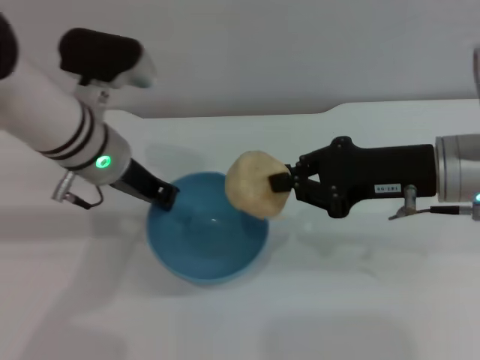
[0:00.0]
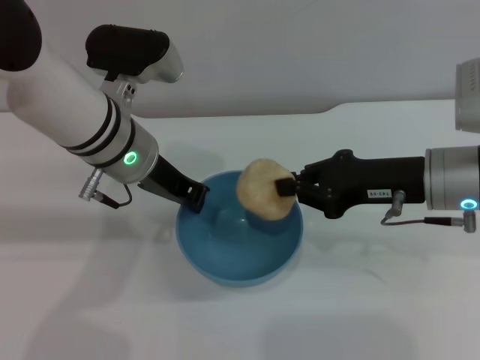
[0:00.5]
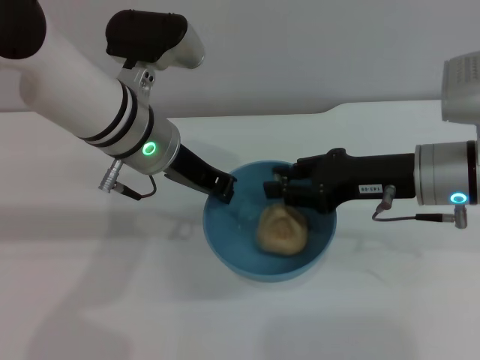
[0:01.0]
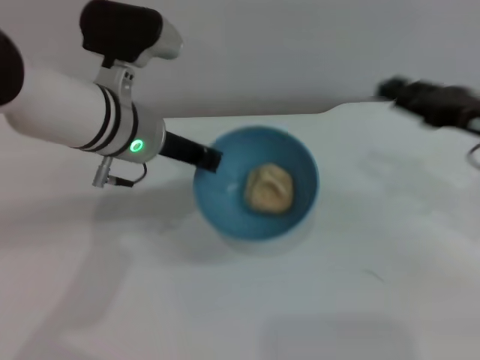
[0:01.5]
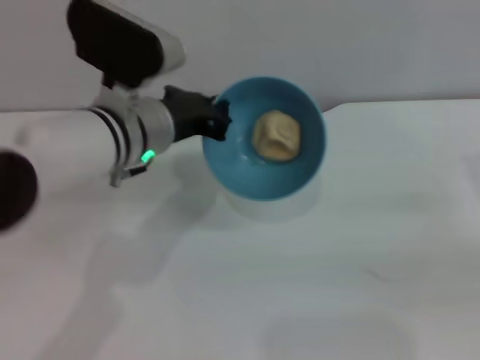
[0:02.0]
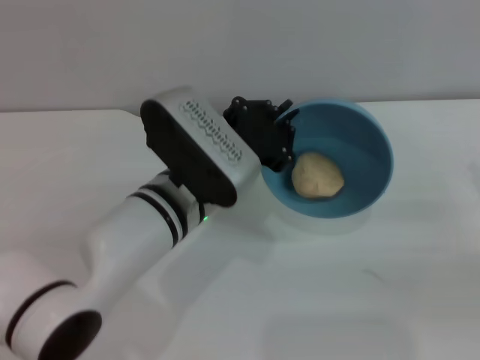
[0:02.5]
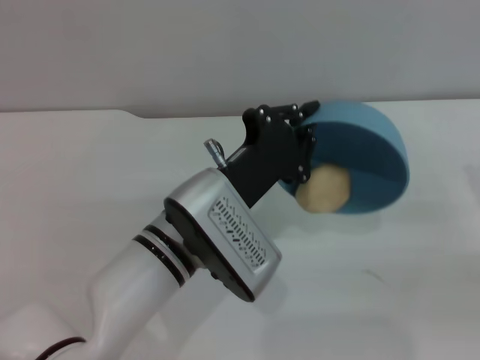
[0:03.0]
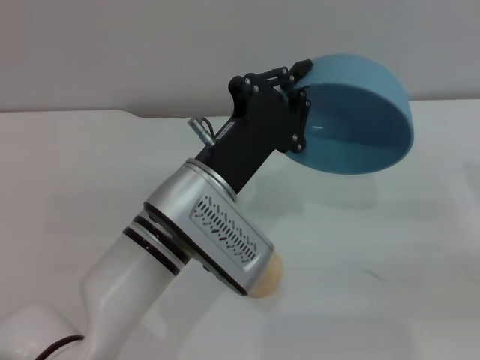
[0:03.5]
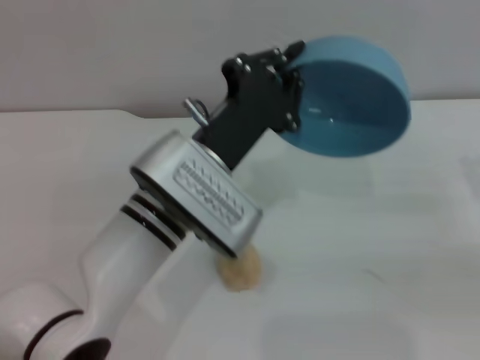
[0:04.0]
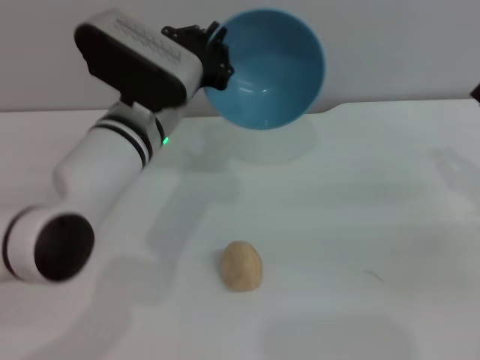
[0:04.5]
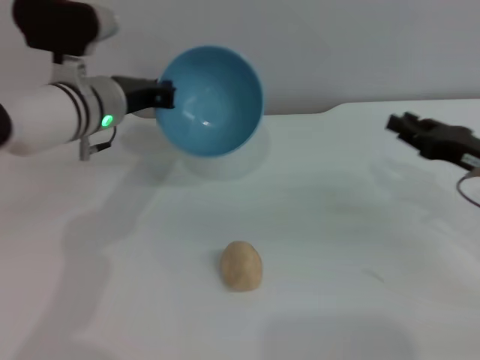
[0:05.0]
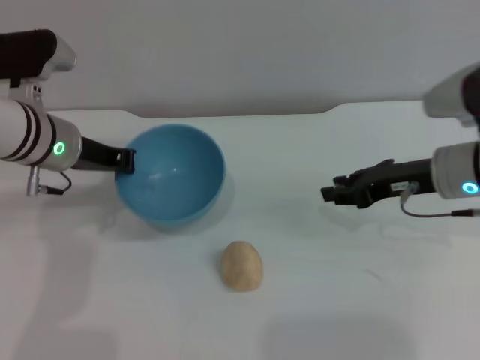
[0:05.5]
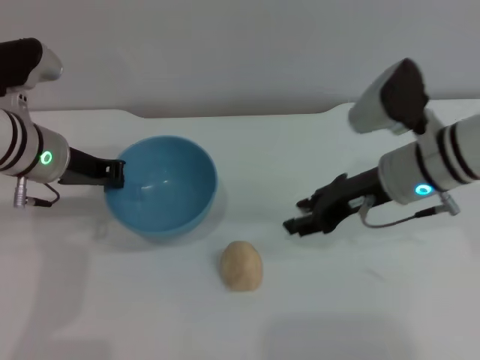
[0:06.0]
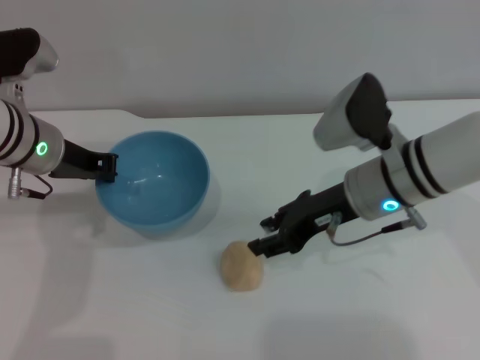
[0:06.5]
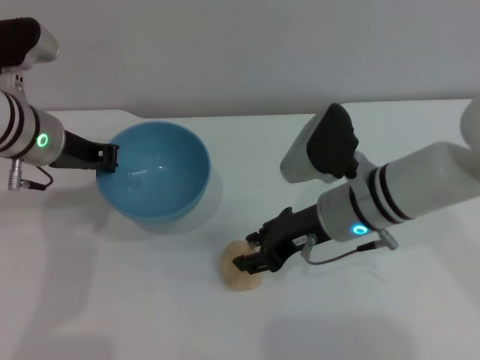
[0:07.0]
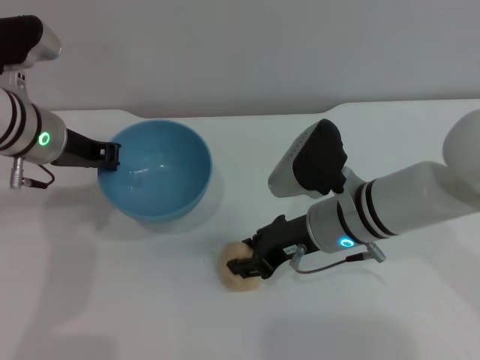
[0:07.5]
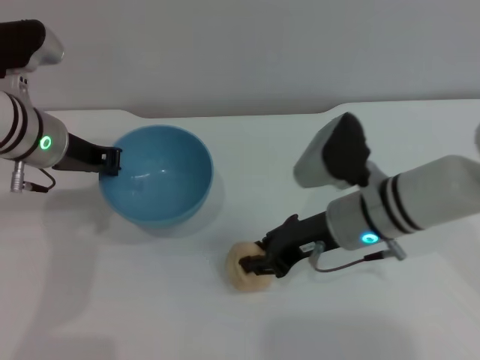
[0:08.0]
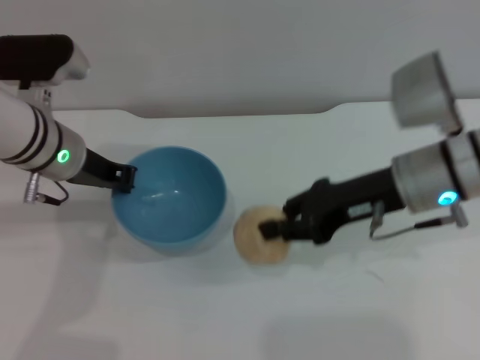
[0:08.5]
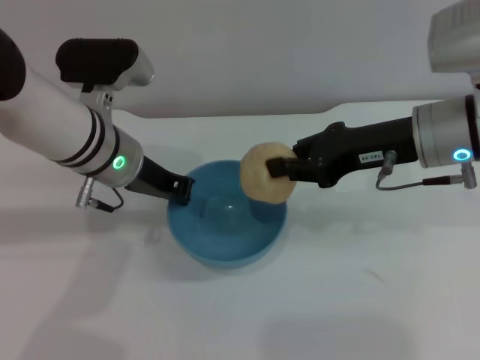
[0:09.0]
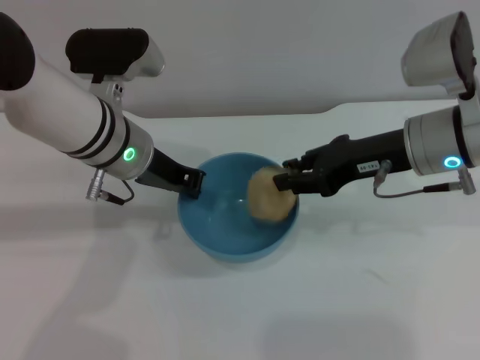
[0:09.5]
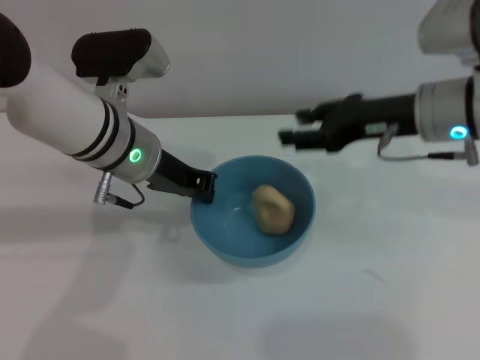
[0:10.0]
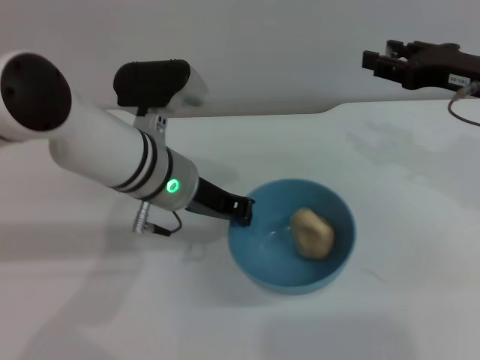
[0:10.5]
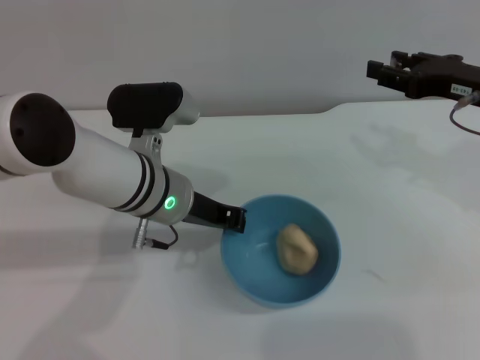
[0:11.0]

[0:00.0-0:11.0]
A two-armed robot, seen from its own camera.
Task of the whole recording: put the egg yolk pastry into the blue bowl and pour it out repeatedly.
Step, 0:00.0 to 0:01.0: Place the egg yolk pastry into the bowl.
Step, 0:01.5 to 0:03.0: Pour the egg yolk pastry out of bowl.
Step, 0:03.5 to 0:08.0: Pick up the egg yolk pastry with the right gripper.
Step, 0:08.5 to 0:10.0: Place the egg yolk pastry into the bowl.
0:00.0 to 0:02.0: The right gripper moves to the right, approximately 15 cm, and opens up.
0:02.0 to 0:03.5: The left gripper is displaced backward and to the right by about 10 cm.
0:03.5 to 0:05.5: Both grippers move to the left and forward, roughly 20 cm.
0:05.5 to 0:07.5: The right gripper heads to the left, covering roughly 15 cm.
0:07.5 to 0:09.0: The left gripper shifts roughly 5 cm to the right. The right gripper travels upward and to the right by about 15 cm, and closes.
0:09.0 to 0:11.0: The right gripper is displaced to the right by roughly 10 cm, and opens up. Meanwhile the left gripper shifts by approximately 5 cm.

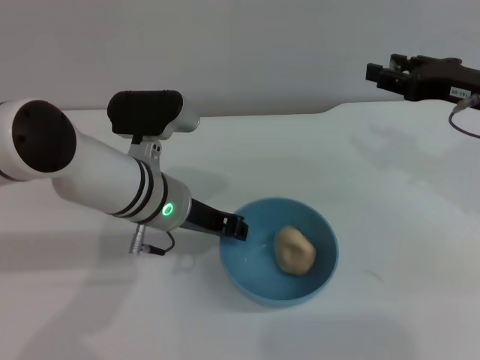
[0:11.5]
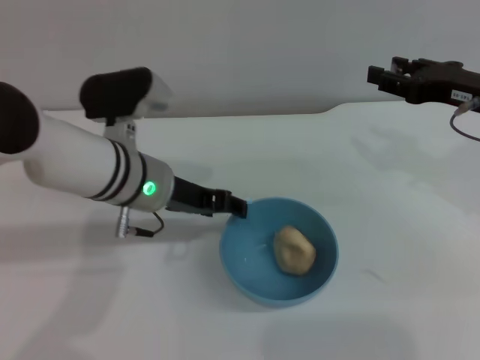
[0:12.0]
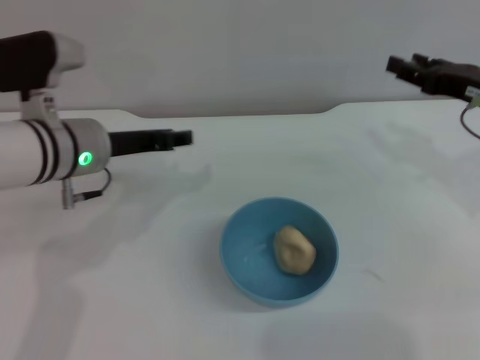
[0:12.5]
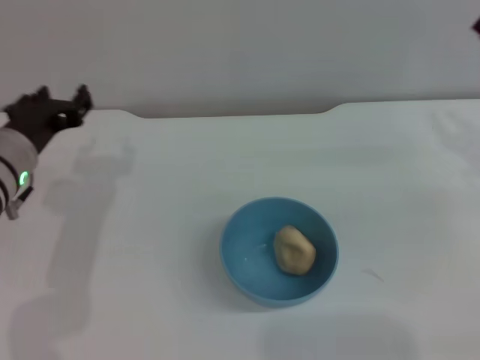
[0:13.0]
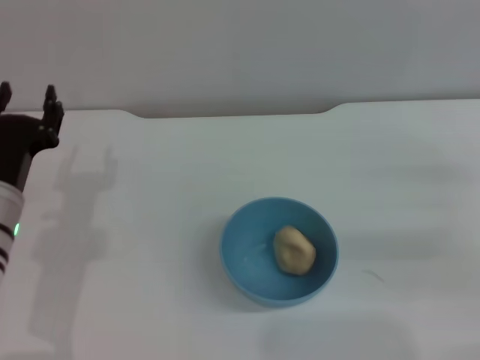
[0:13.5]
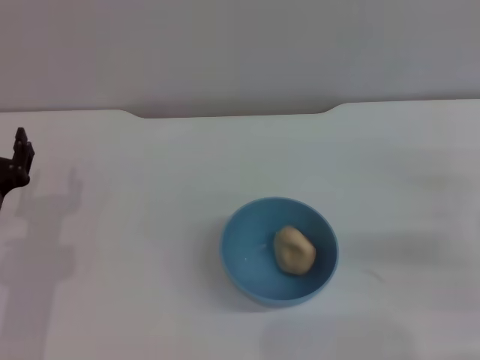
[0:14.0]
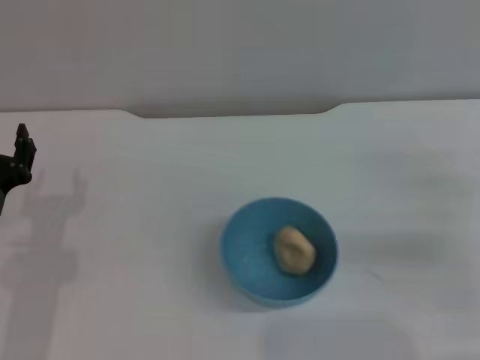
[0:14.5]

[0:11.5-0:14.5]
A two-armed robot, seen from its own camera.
Task of the whole recording: put the egg yolk pastry into the blue bowl and pour it out repeatedly.
0:11.5 to 0:13.0: The right gripper goes roughly 5 cm to the right; the left gripper moves to the left, about 15 cm, and opens up.
0:13.0 to 0:14.5: The left gripper travels downward and backward by some 10 cm. Meanwhile the right gripper shifts some 5 cm downward.

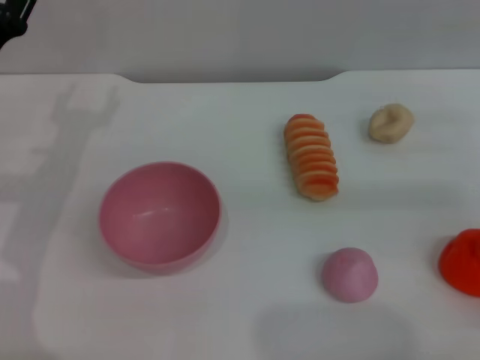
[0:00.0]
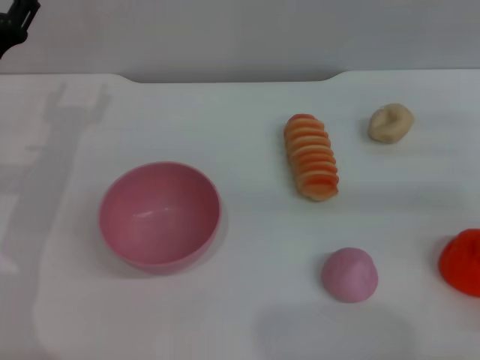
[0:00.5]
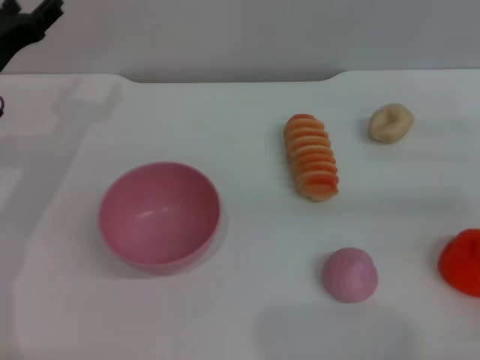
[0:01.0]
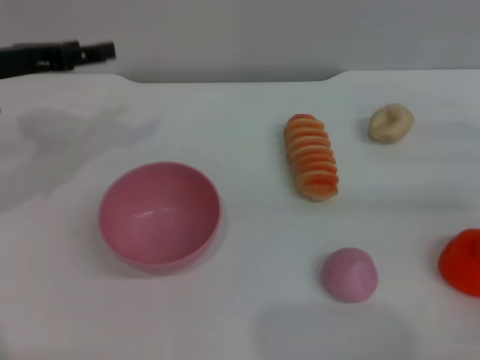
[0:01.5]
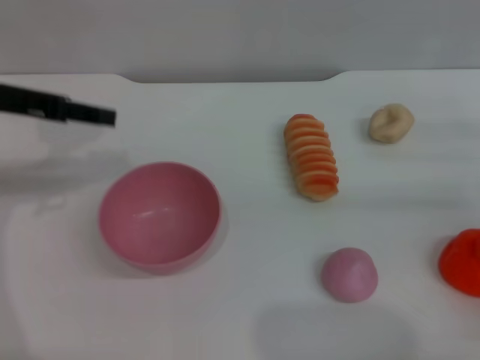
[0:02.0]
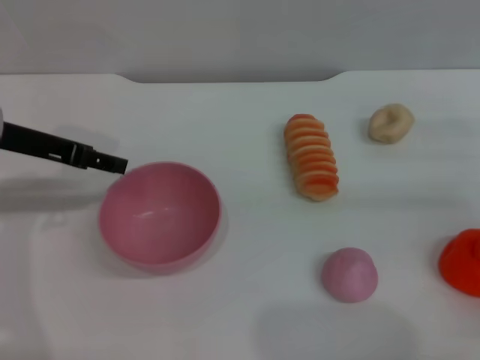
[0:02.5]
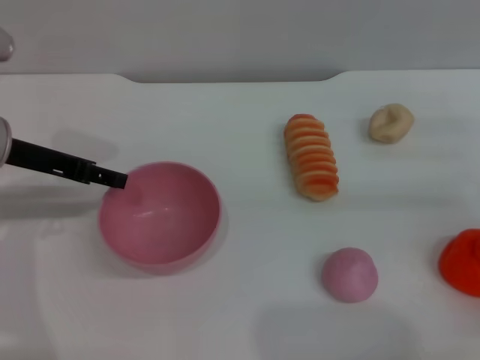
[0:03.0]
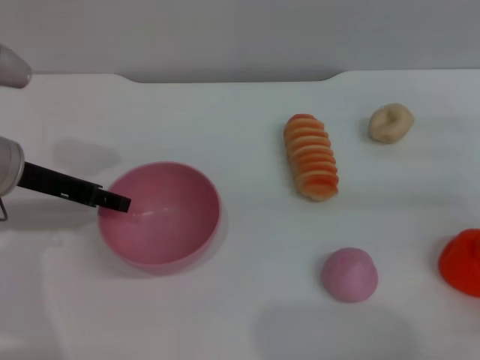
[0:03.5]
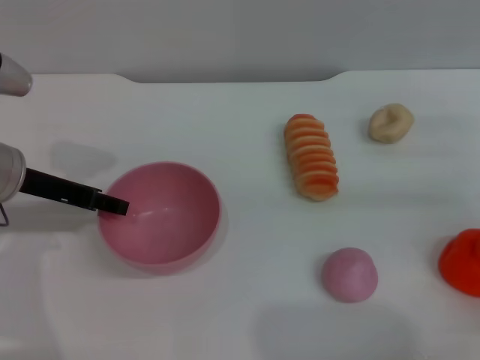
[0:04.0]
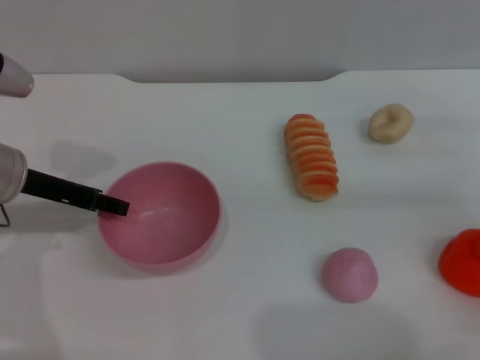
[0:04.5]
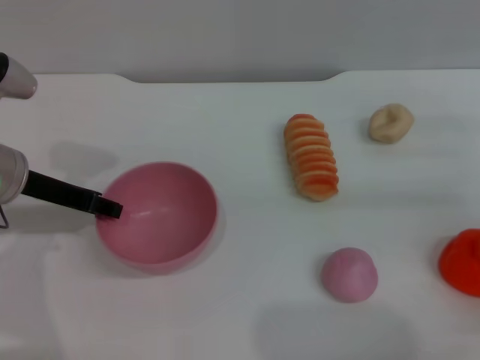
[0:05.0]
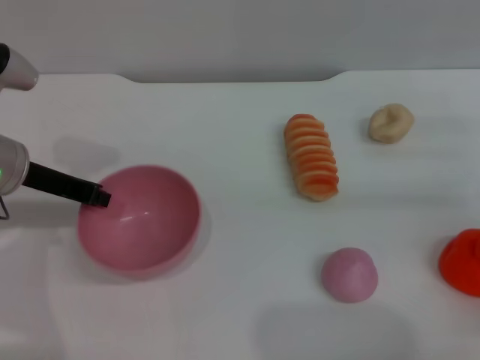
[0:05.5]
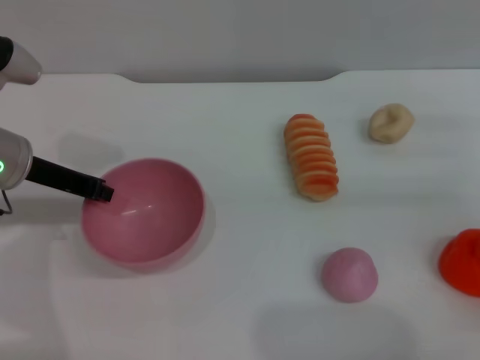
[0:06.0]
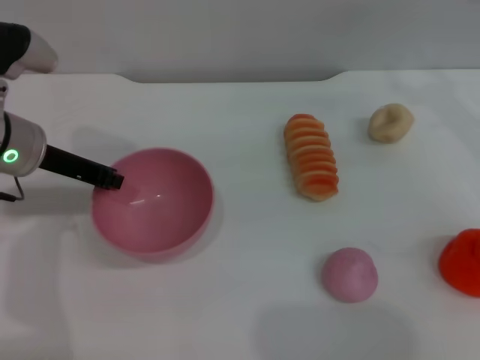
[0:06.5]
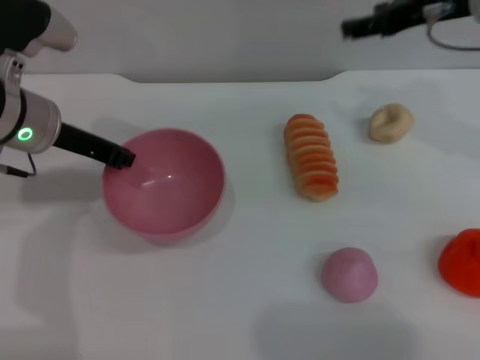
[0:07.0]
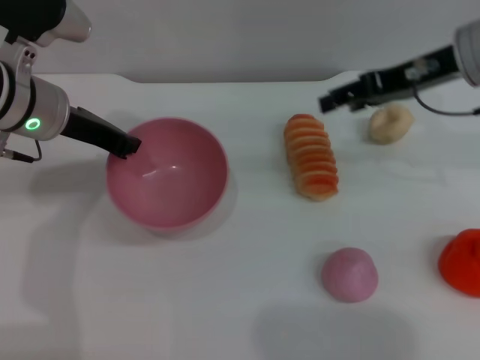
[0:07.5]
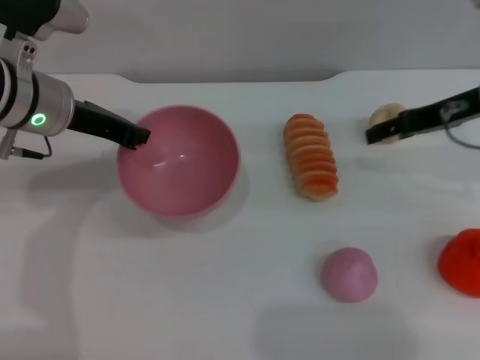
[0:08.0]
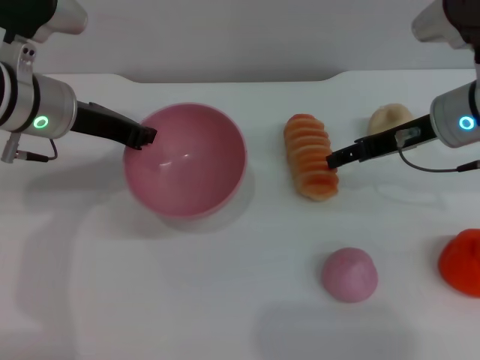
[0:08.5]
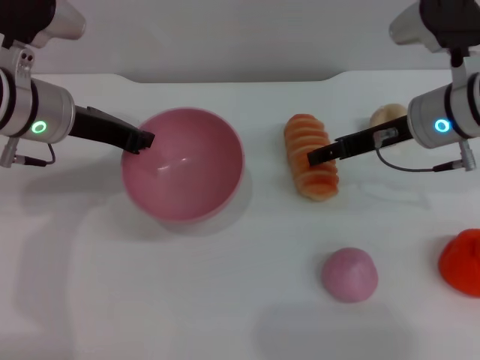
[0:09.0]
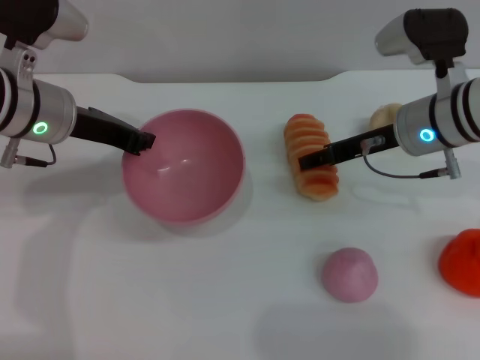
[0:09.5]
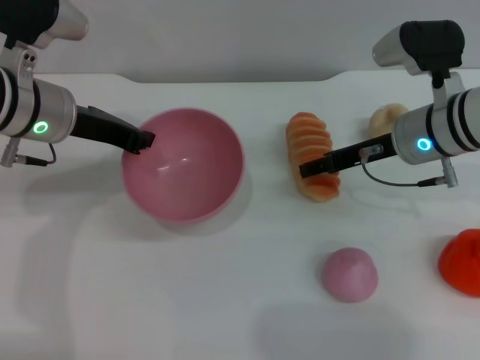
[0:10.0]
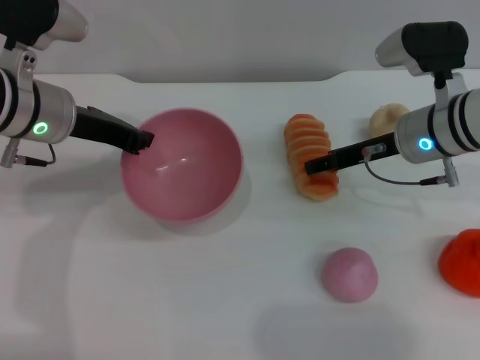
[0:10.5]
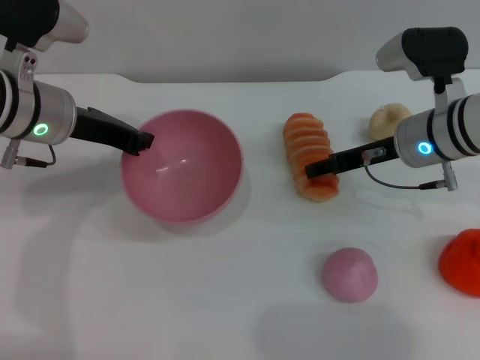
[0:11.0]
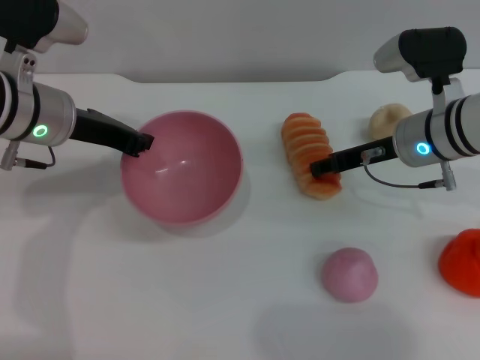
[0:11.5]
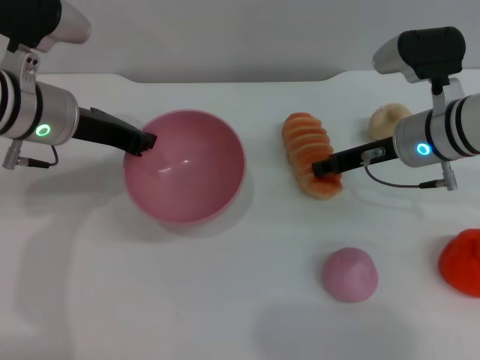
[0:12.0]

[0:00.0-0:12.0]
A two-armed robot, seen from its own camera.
Task of the whole recording: put the bread into the pink bowl and pour it out repeatedly.
Step, 0:00.0 to 0:06.5: Pick up the bowl with the left gripper.
0:00.0 to 0:02.0: The left gripper is displaced upward by some 10 cm.
0:02.0 to 0:04.0: The left gripper heads downward, covering roughly 10 cm.
0:04.0 to 0:06.0: The left gripper closes its fingers.
0:06.0 to 0:08.0: The right gripper heads to the left and upward, covering about 10 cm; the left gripper moves about 5 cm.
0:08.0 to 0:10.0: The right gripper travels to the left and downward by some 10 cm.
0:10.0 to 0:12.0: The right gripper closes its fingers.
